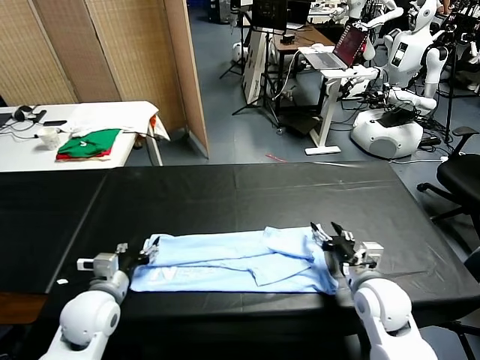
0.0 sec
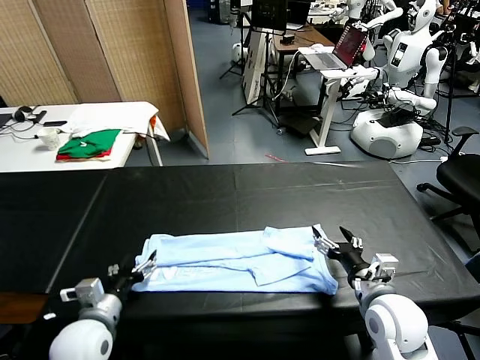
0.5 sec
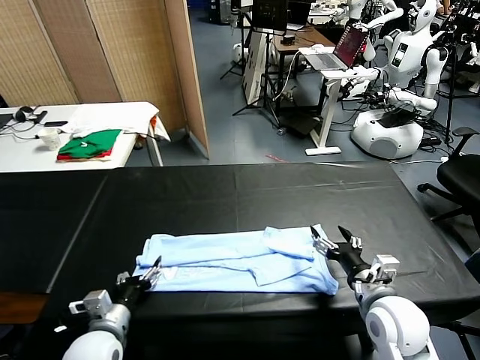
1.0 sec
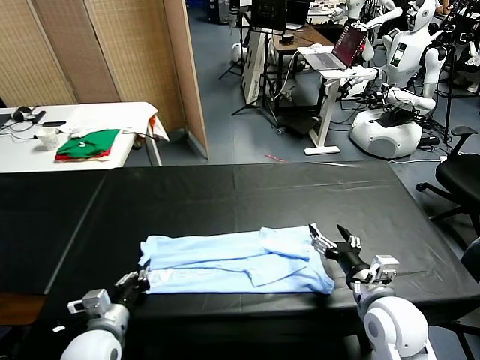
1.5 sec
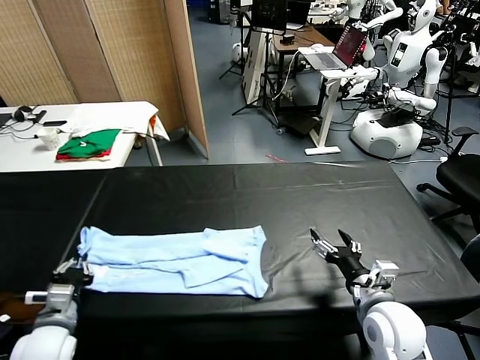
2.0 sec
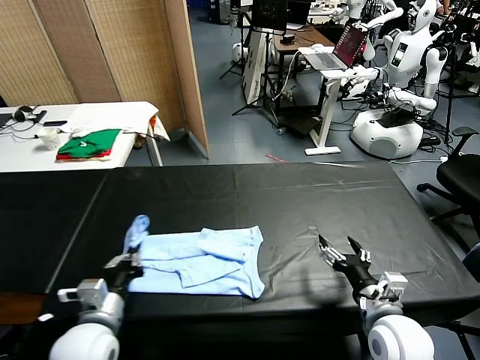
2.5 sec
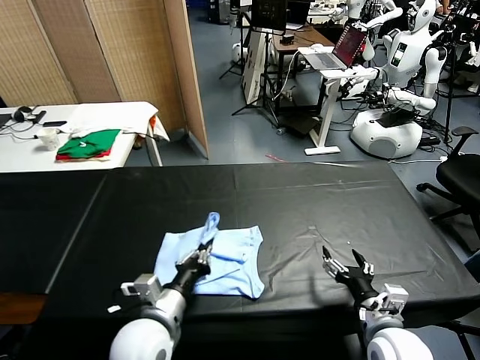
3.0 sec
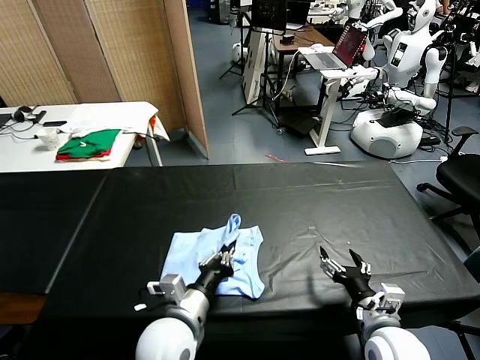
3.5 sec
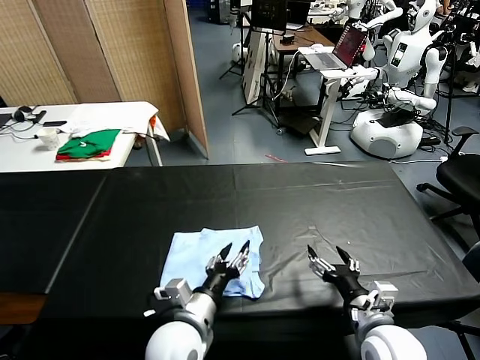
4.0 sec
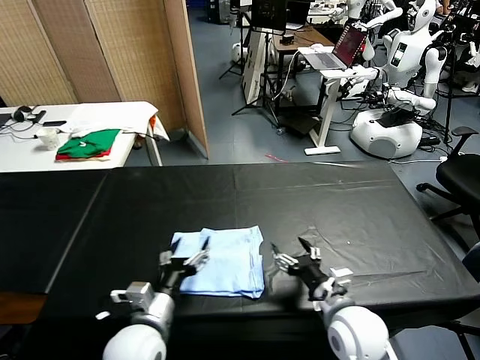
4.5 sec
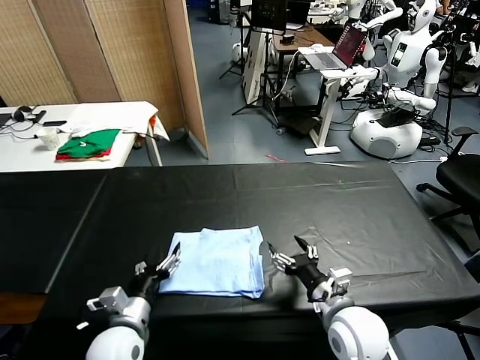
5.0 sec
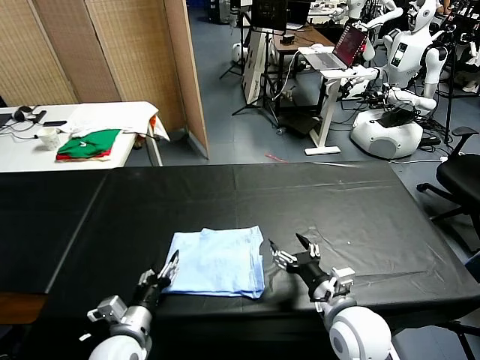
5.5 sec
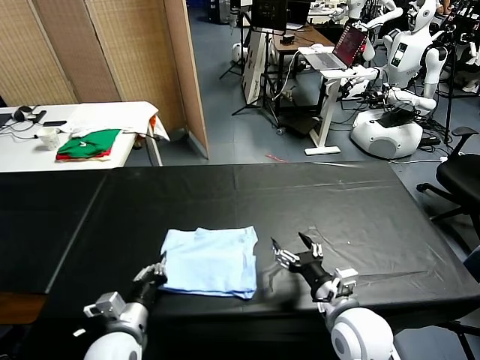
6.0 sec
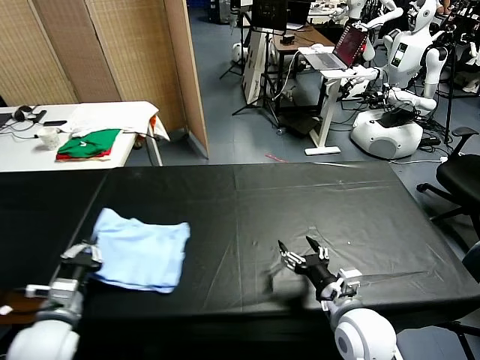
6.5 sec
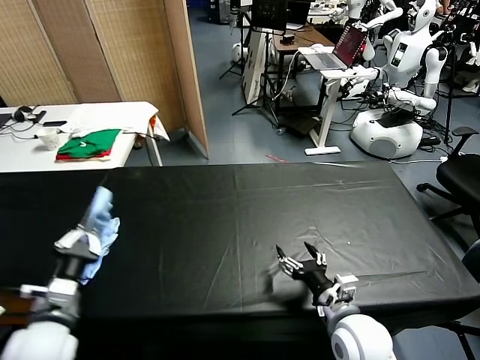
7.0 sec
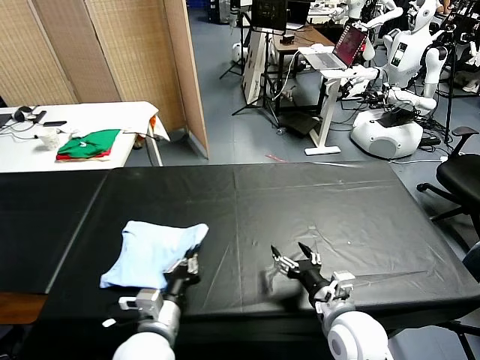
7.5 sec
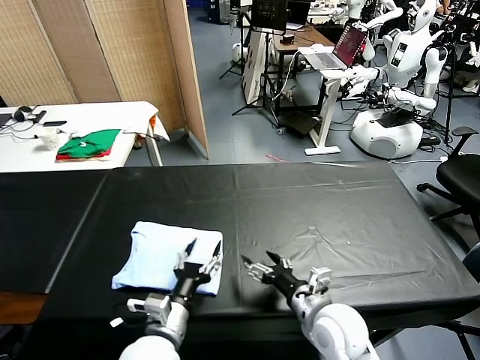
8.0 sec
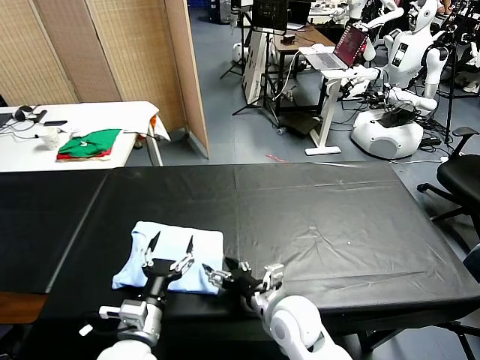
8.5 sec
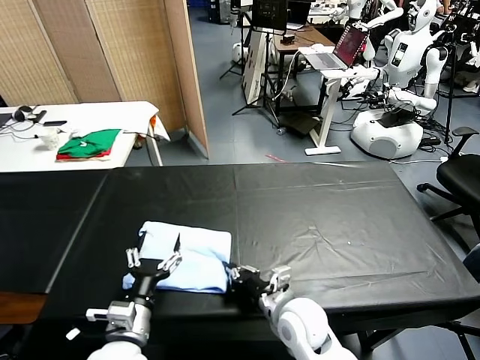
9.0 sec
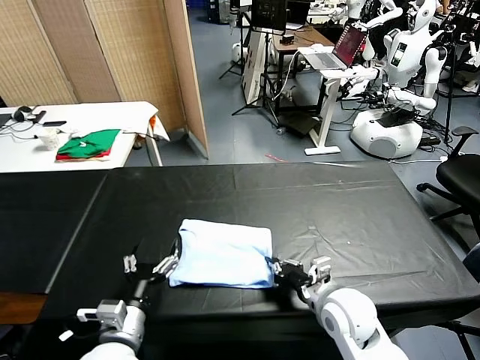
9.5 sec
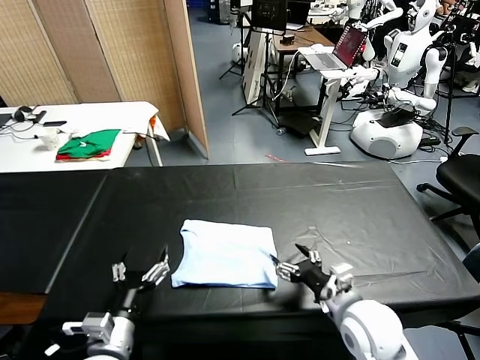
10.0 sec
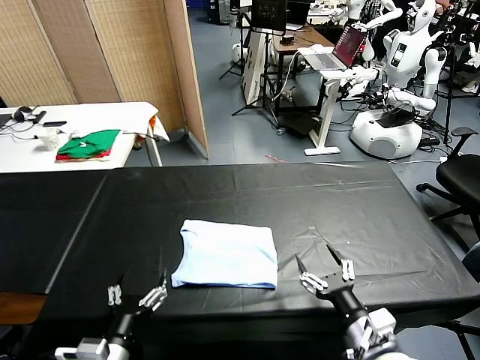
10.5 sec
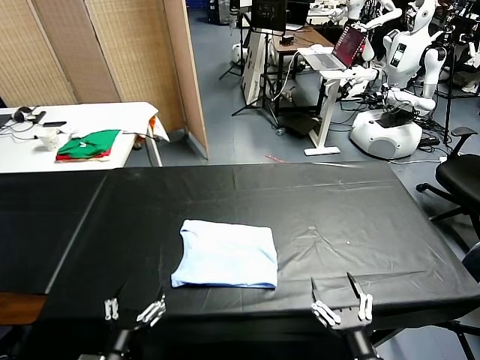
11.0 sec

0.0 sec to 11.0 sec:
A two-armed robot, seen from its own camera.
Task of the whole recording: fold and organize the clothes.
Step, 1.5 sec to 4.0 sec: use the left gripper to drag the left edge of the fabric to the left and folds it over the right edge.
Step, 4.5 sec to 7.5 sec: Flip the folded clothes over with left gripper.
Step, 8.0 sec to 9.5 sec: Drag the clothes to the center of the table.
0.0 sec to 2.0 sec: The left gripper heads to the left and backward, covering approximately 10 cm, and closes.
2.0 sec to 3.5 sec: The left gripper is displaced to the right by some 25 cm.
3.5 sec to 5.5 sec: The right gripper shifts roughly 5 cm to the left. The left gripper goes approximately 15 cm to the left and downward, and opens up.
5.5 sec to 7.5 sec: The left gripper shifts some 5 cm to the right, and closes its fingers.
7.5 sec to 9.0 sec: The right gripper moves to the left, roughly 10 cm, and closes its fingers. Meanwhile the left gripper opens its fingers.
9.0 sec to 11.0 sec: The right gripper shifts some 20 cm backward and to the right, and opens; the left gripper goes roughly 10 cm backward.

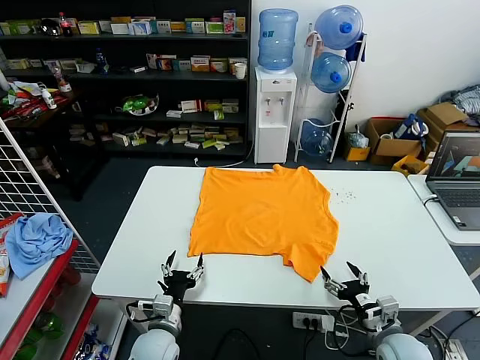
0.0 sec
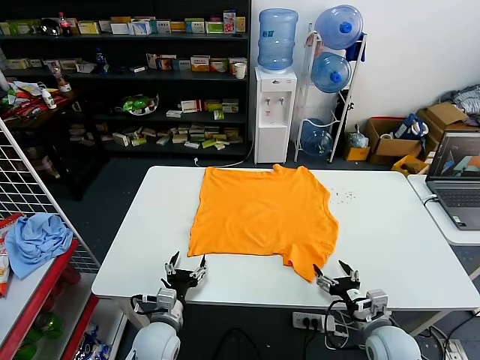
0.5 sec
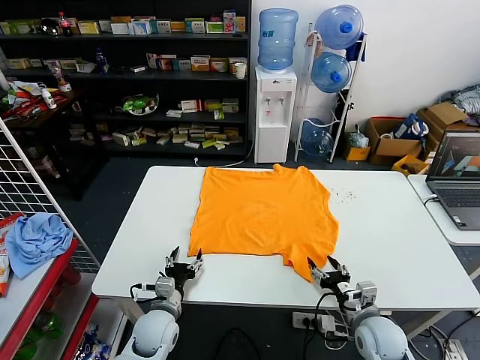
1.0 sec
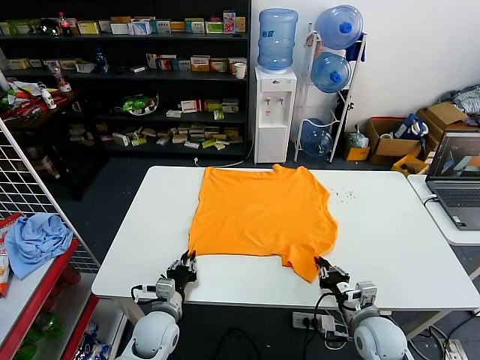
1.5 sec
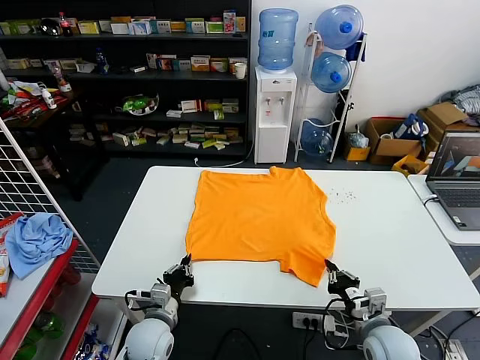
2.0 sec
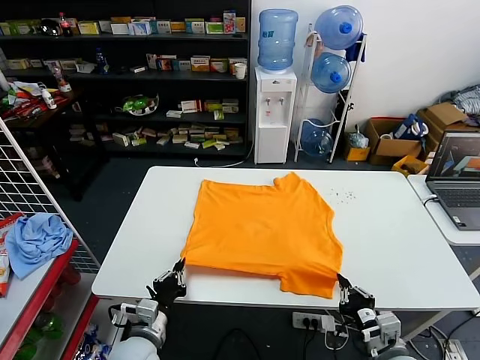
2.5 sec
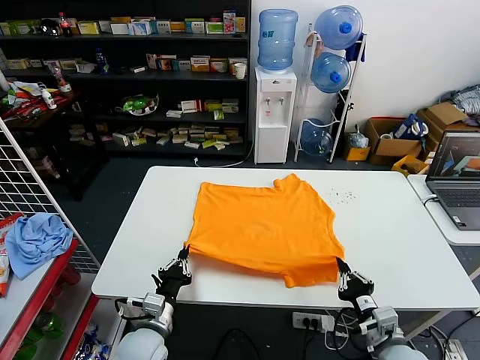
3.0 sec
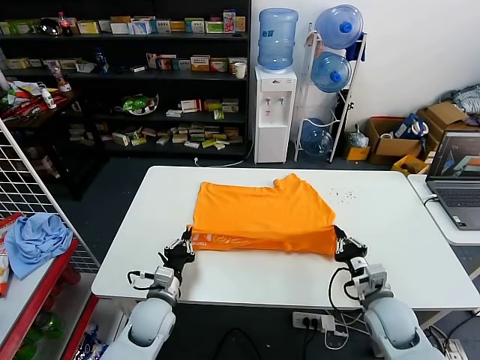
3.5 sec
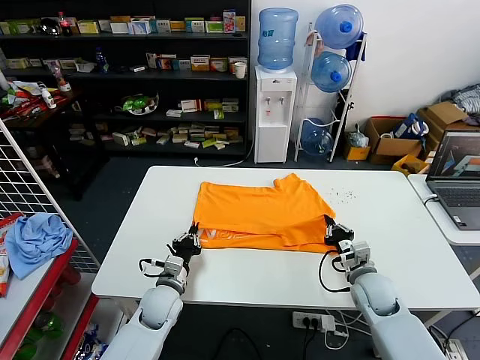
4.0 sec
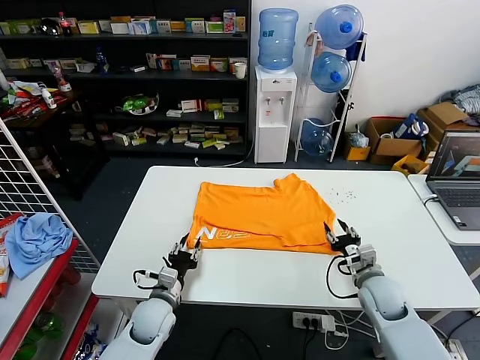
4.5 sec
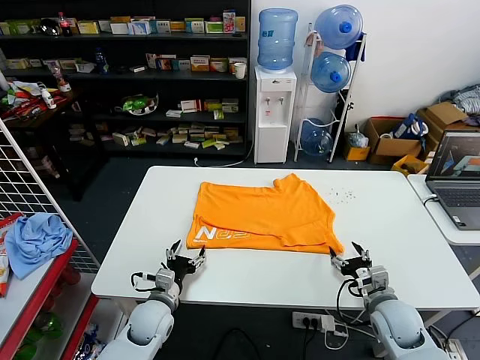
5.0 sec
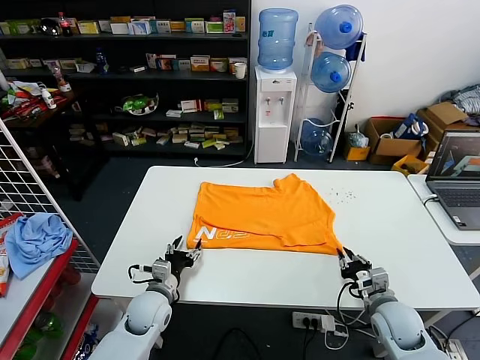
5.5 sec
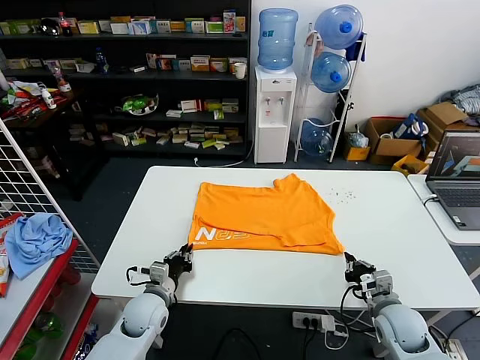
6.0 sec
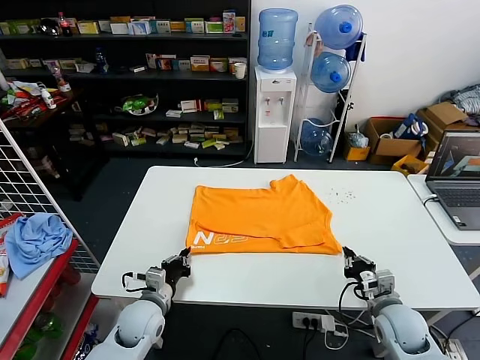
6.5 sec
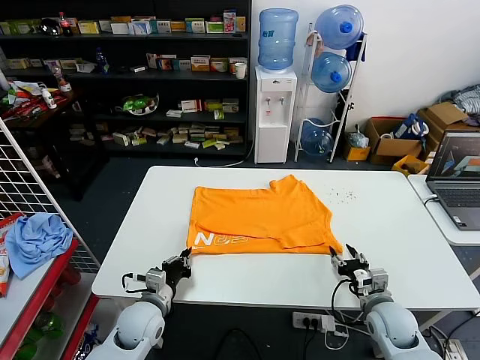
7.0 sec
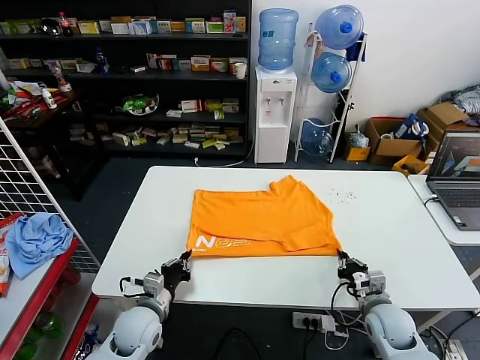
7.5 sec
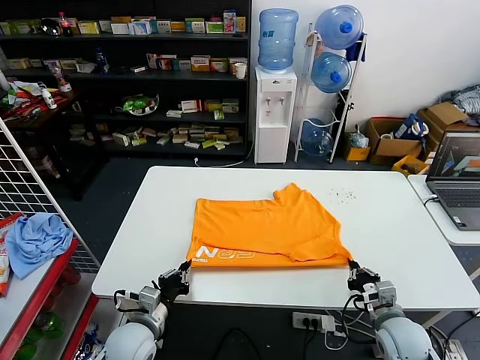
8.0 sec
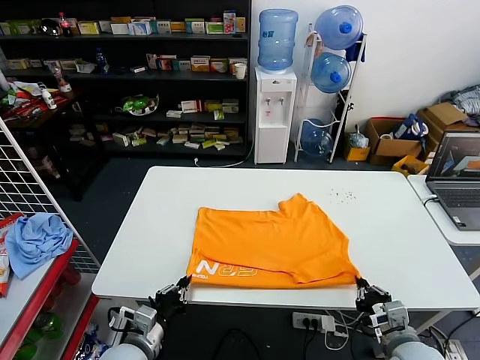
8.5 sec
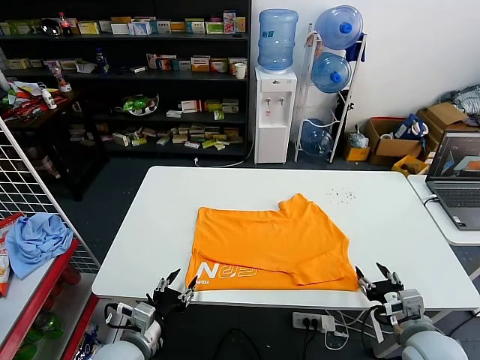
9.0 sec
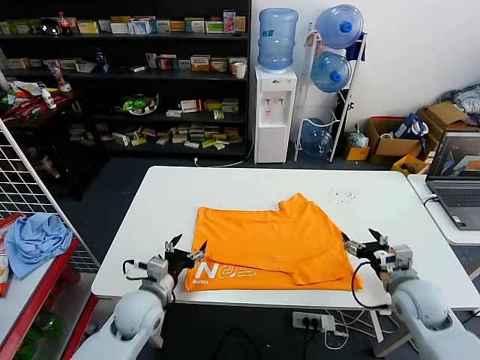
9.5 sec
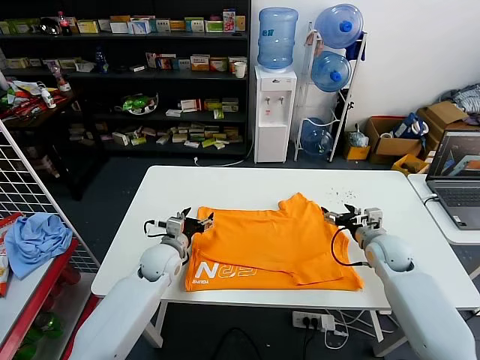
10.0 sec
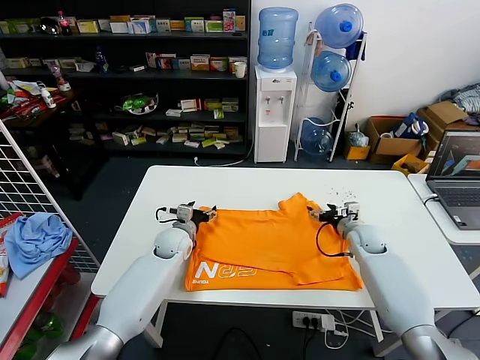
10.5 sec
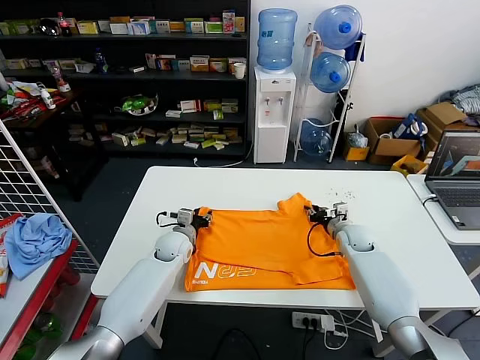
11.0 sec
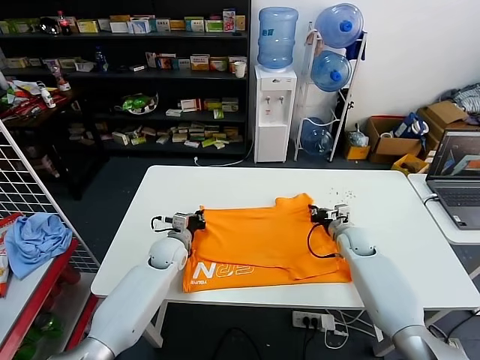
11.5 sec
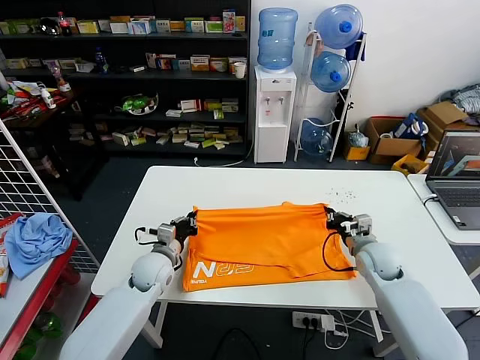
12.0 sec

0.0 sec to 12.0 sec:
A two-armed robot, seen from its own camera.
Task of the whole recording: fold and organize the clothes.
Step, 0.0 sec to 1.5 sec: use both grippers simultaneously to clamp the lower edge of the clothing fabric.
Step, 2.0 sec to 4.0 sec: use both grippers to drag the lower edge of the fabric forward and fold it over the upper edge.
Step, 4.5 sec to 8.5 sec: Drag the clothes downward with both gripper.
Step, 9.0 sec to 11.0 sec: use both grippers simultaneously to clamp the upper edge of the clothing fabric.
2.0 sec to 4.0 sec: The left gripper goes about 10 cm forward; the right gripper shifts roughly 15 cm forward.
4.0 sec to 6.0 sec: The left gripper opens and closes again. Meanwhile the right gripper heads backward, covering some 10 cm, and opens, then closes again.
6.0 sec to 8.0 sec: The left gripper travels backward by roughly 5 cm; the right gripper opens and closes again.
8.0 sec to 10.0 sec: Both grippers travel together forward, about 20 cm. The right gripper opens. Meanwhile the left gripper opens its fingers.
10.0 sec to 12.0 sec: The right gripper travels forward and back again, roughly 5 cm each way, and closes up. Meanwhile the left gripper goes forward and returns, about 5 cm each way, and closes.

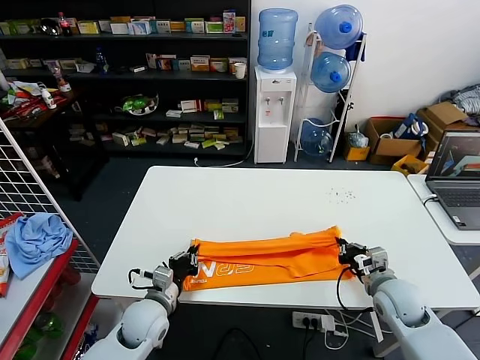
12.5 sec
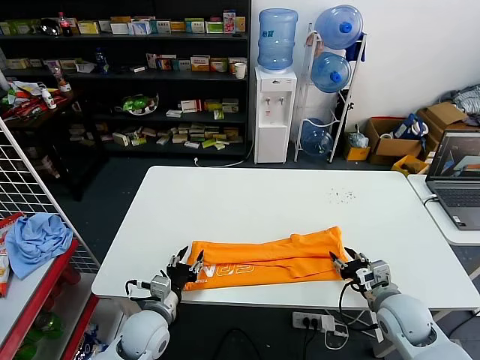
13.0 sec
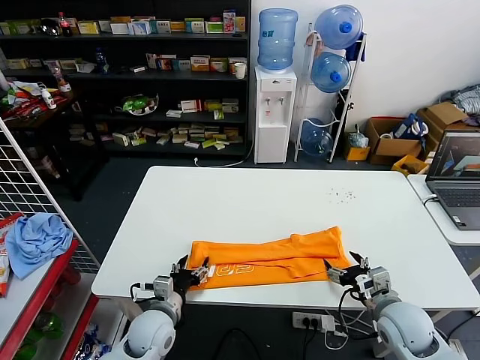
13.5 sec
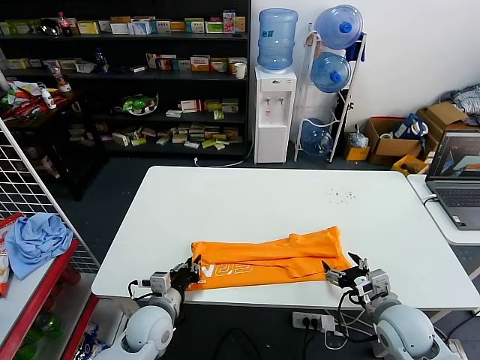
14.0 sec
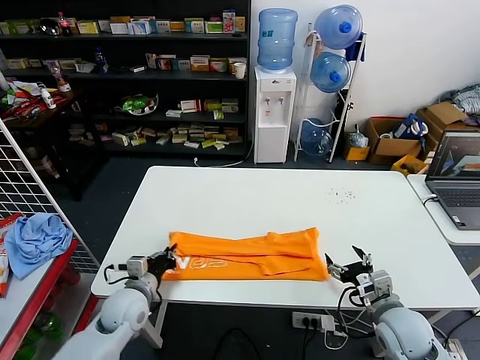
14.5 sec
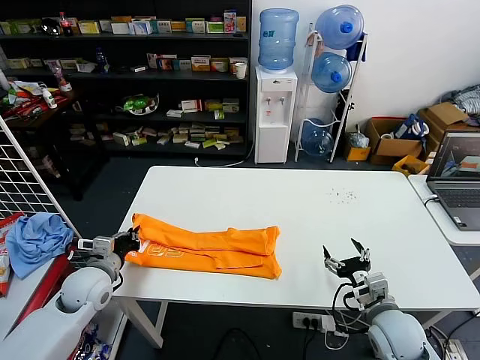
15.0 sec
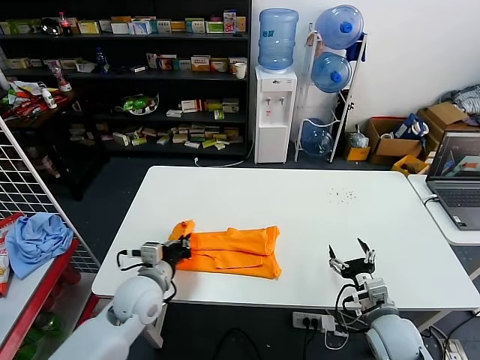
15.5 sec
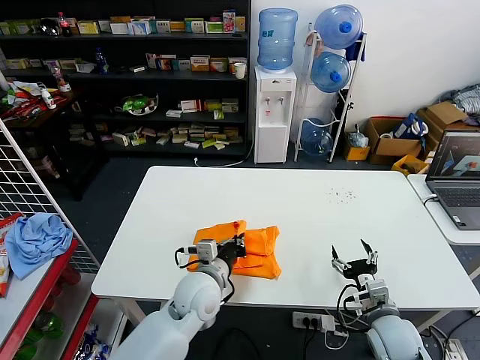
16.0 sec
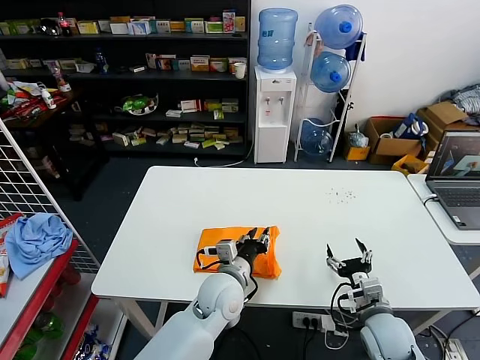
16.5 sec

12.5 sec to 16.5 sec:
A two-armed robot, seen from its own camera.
Task of the whole recording: fold and organize the clothes.
Step, 13.0 sec to 14.0 sec: use the left gripper to clamp the left edge of the fabric.
Step, 14.5 sec to 16.5 sec: use the left gripper to drag the left edge of the fabric to the left and folds it over the right edge.
12.5 sec to 14.5 sec: The left gripper opens, then closes again. The right gripper travels backward by some 5 cm, and opens up.
14.5 sec to 16.5 sec: The left gripper moves to the right, roughly 20 cm, and opens.
